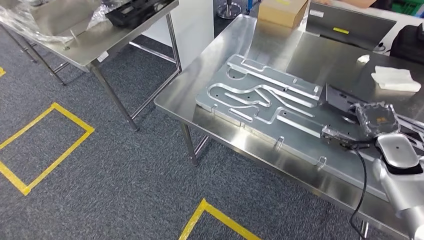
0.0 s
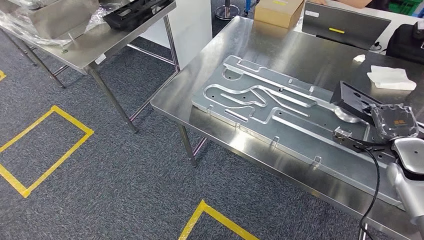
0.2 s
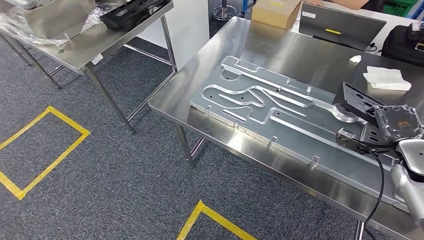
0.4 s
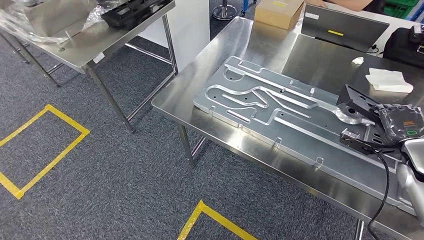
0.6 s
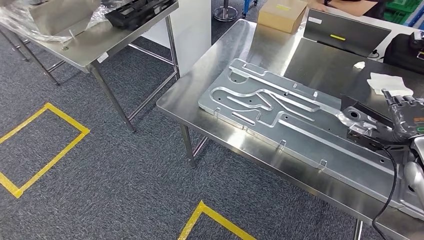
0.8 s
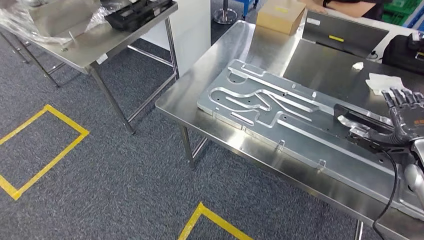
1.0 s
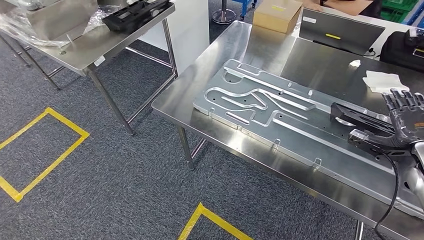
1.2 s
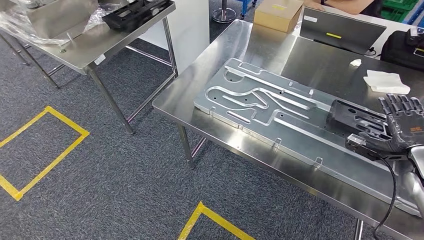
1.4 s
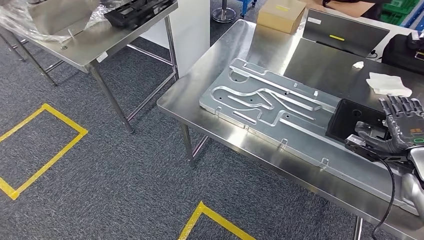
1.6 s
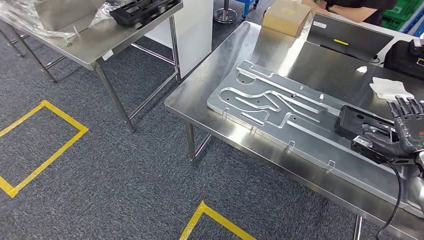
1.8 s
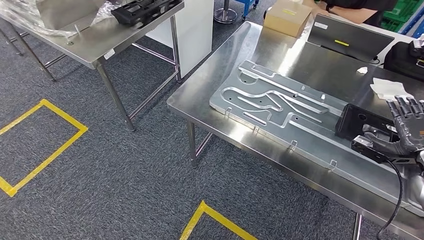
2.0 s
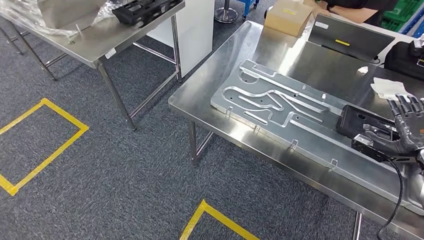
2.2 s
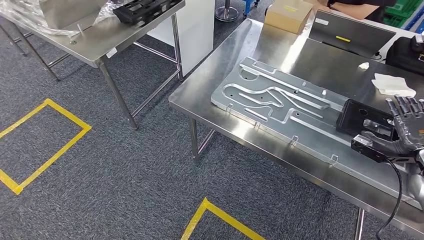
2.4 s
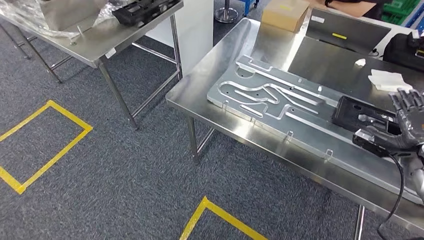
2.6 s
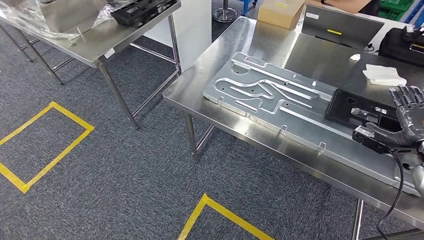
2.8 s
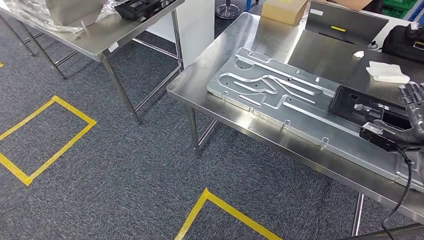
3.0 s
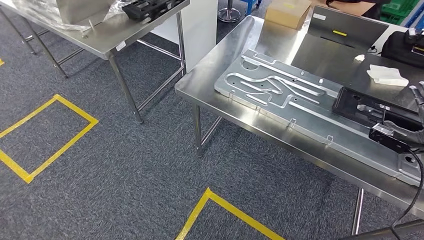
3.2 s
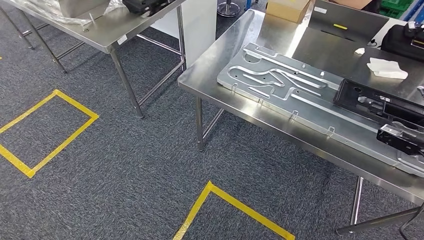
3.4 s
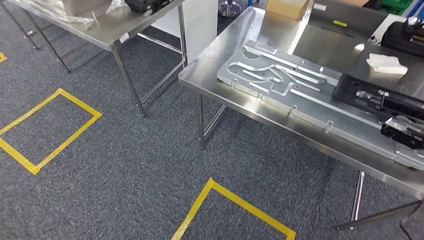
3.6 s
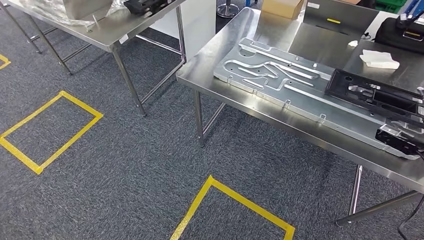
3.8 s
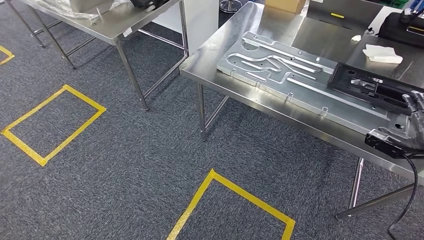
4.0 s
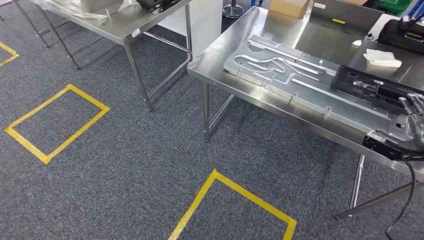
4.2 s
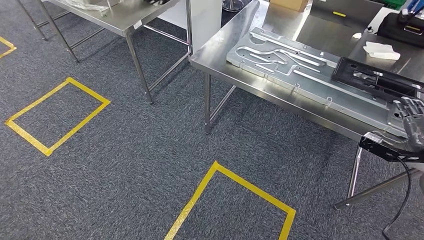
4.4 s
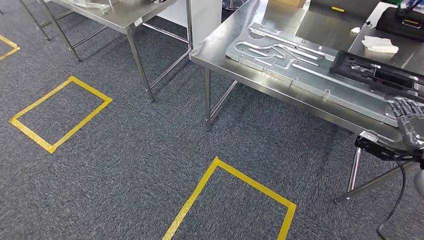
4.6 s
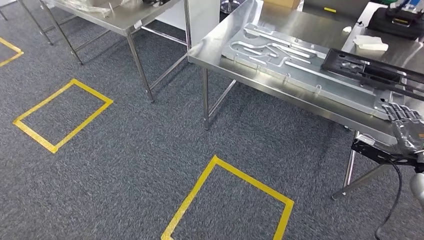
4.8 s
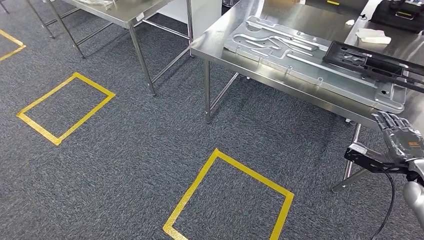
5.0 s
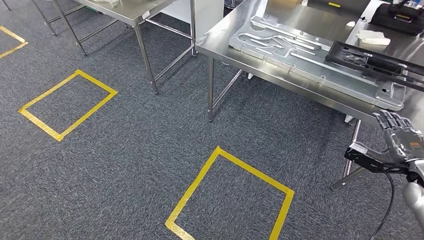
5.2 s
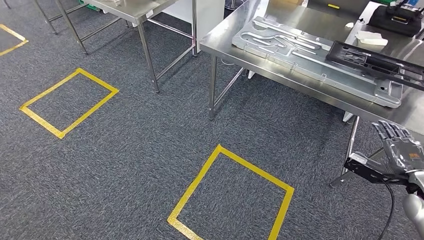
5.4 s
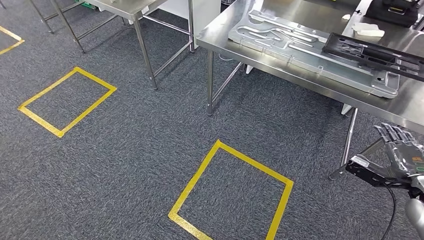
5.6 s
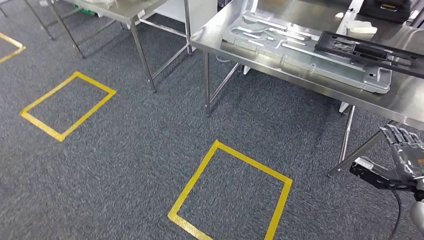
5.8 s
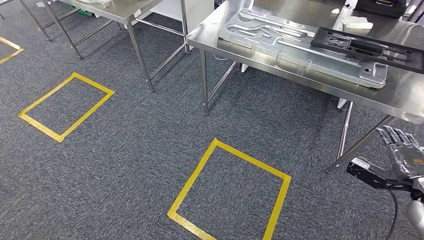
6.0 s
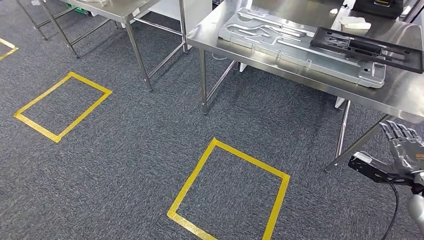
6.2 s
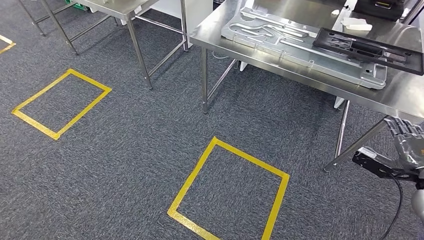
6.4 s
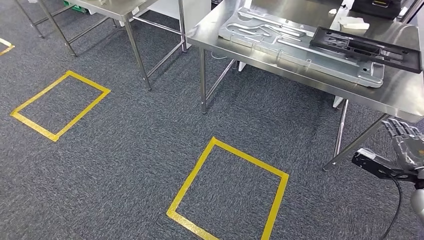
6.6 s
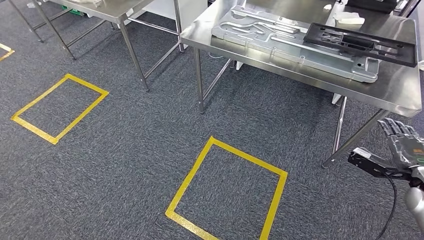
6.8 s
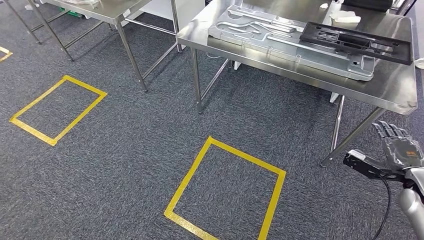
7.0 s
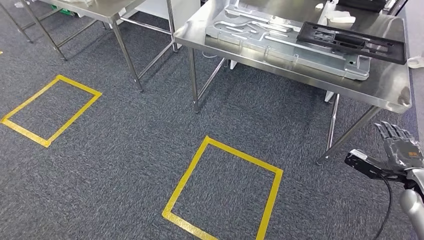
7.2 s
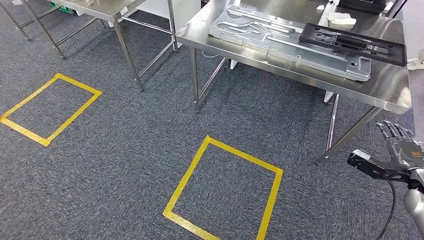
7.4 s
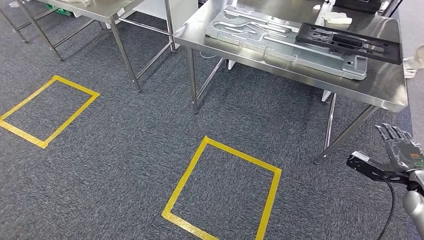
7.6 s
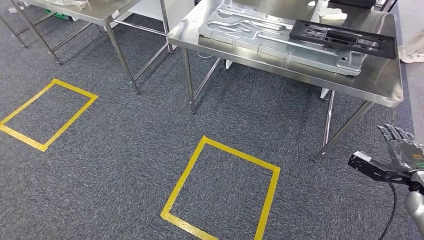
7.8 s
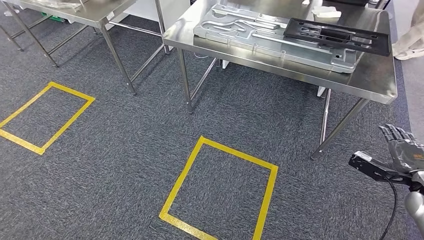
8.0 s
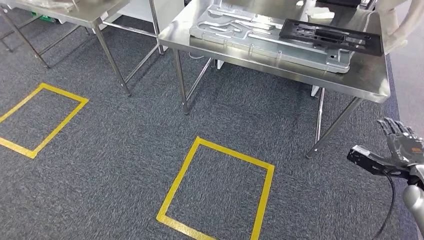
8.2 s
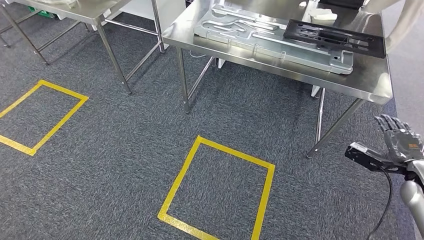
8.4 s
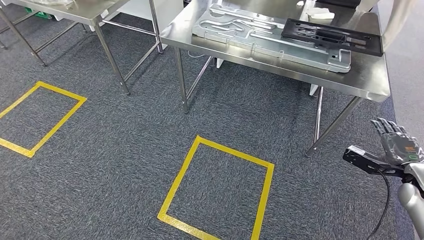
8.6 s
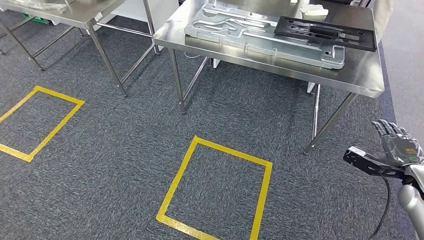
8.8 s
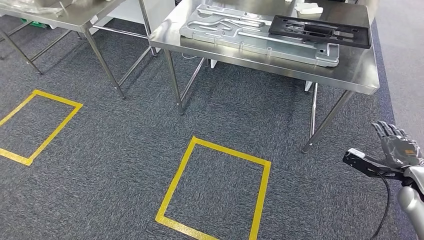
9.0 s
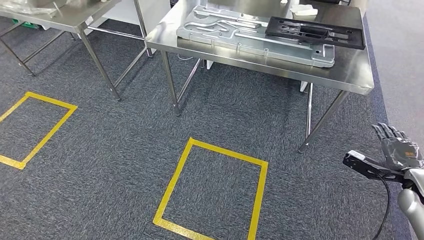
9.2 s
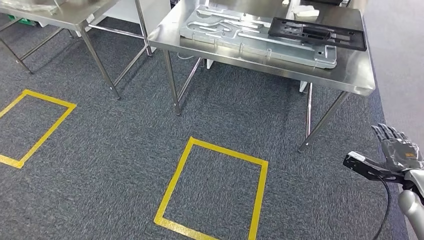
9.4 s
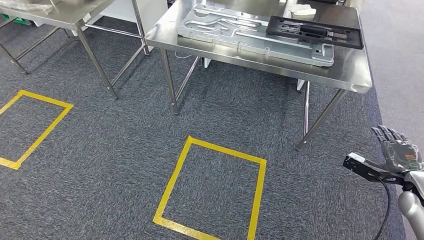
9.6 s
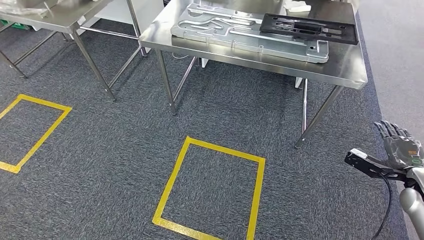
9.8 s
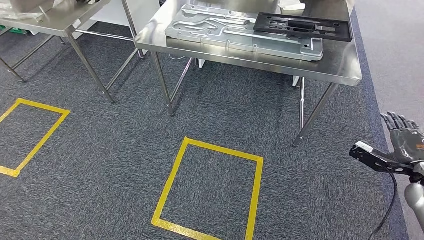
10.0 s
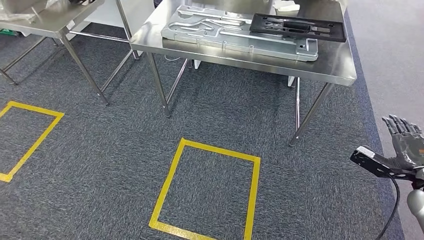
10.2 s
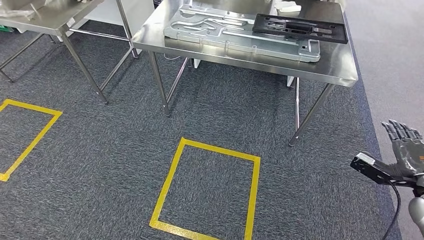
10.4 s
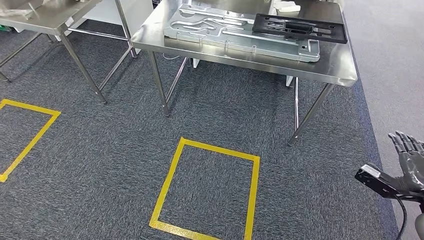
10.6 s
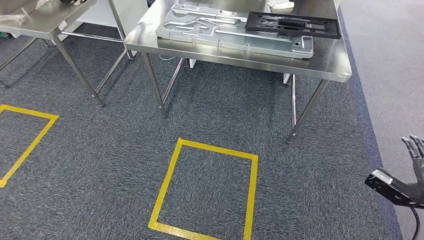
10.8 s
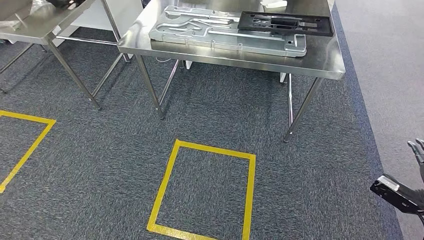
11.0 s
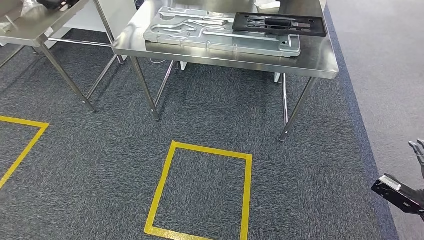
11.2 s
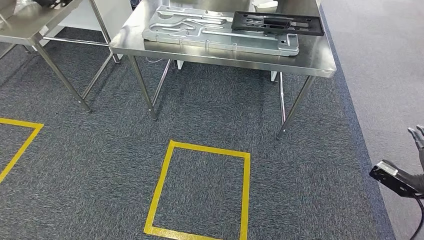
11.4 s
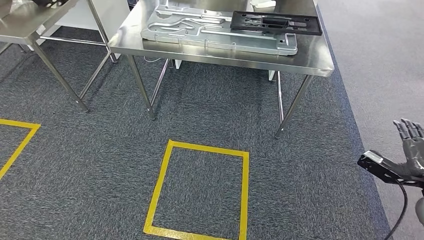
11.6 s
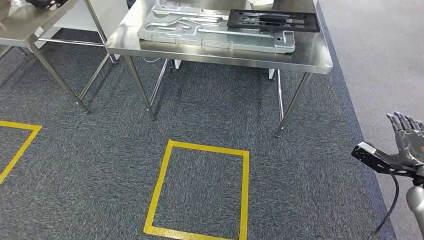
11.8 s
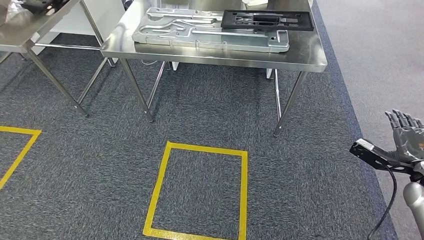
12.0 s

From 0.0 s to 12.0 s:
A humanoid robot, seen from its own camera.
Step, from 2.0 s to 6.0 s: Insert the large material into the corresponding slot on the workbench.

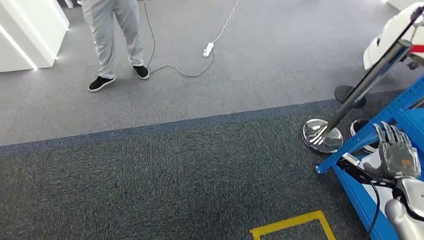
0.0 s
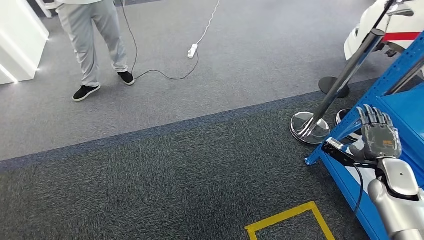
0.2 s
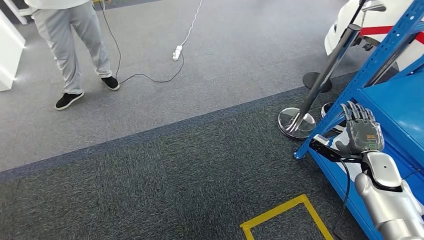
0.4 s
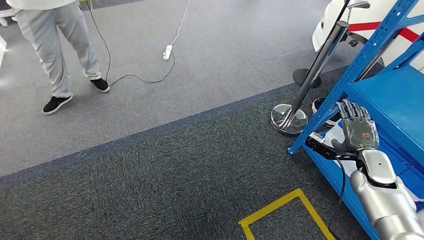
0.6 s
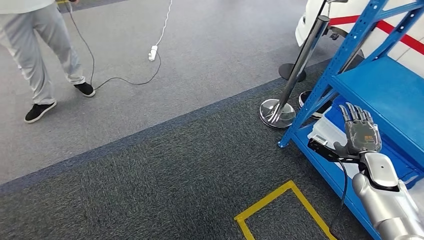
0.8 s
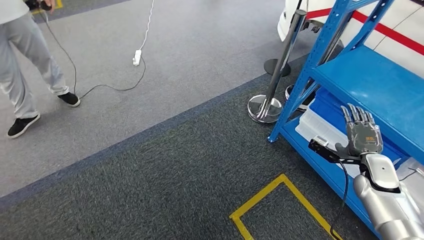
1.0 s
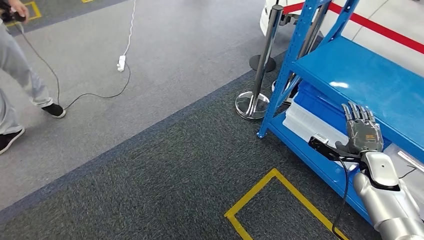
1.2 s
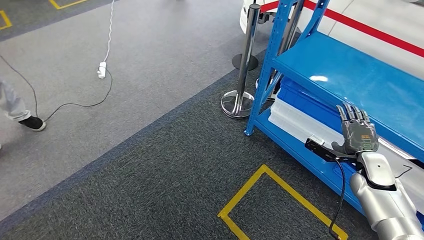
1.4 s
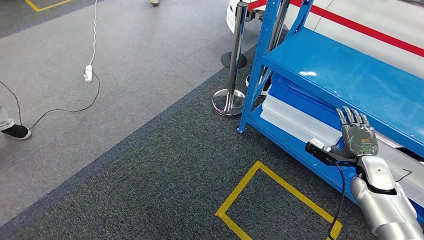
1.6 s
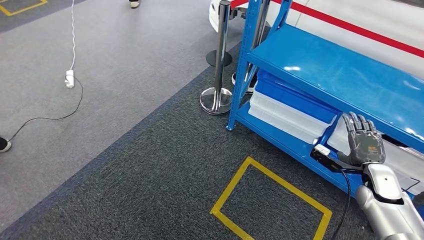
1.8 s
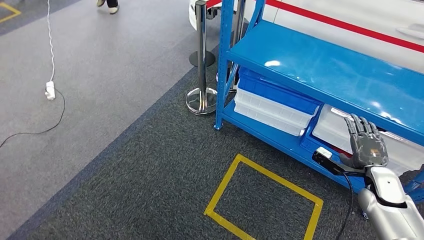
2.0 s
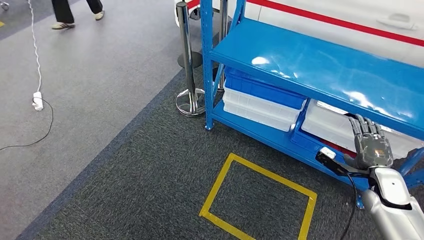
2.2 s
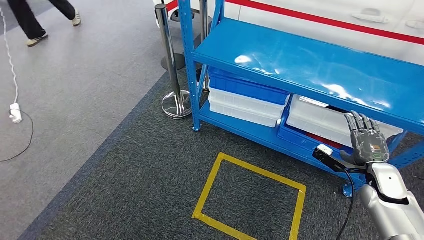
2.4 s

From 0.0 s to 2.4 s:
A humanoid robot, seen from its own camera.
Step, from 0.0 s to 2.4 s: Move to the initial position of the shelf.
